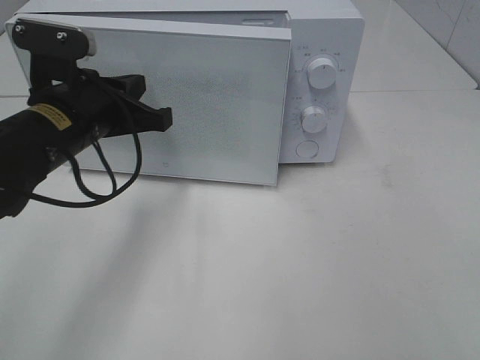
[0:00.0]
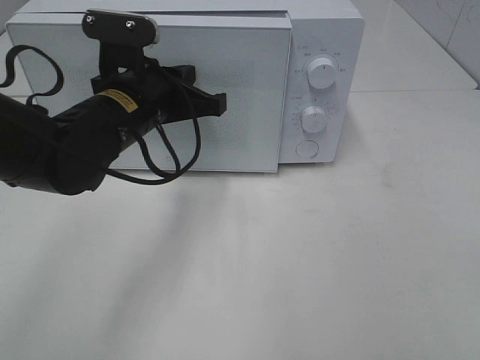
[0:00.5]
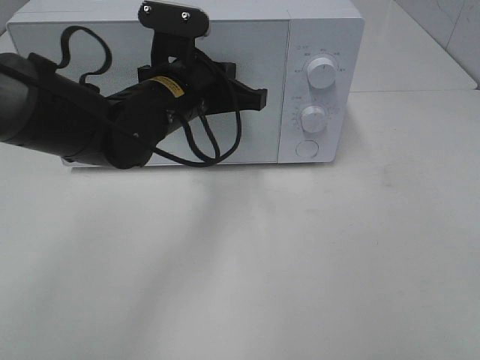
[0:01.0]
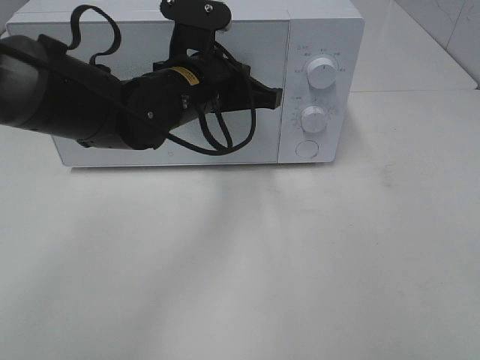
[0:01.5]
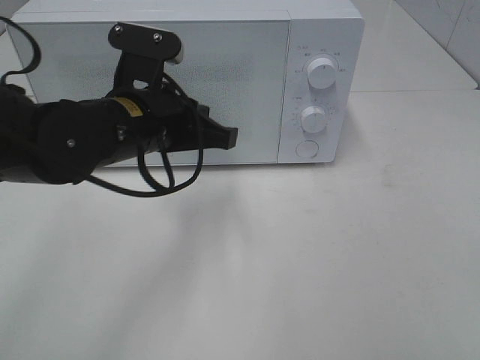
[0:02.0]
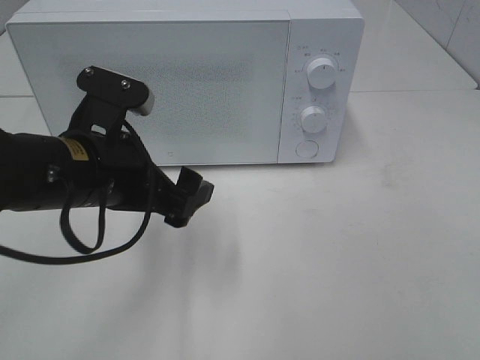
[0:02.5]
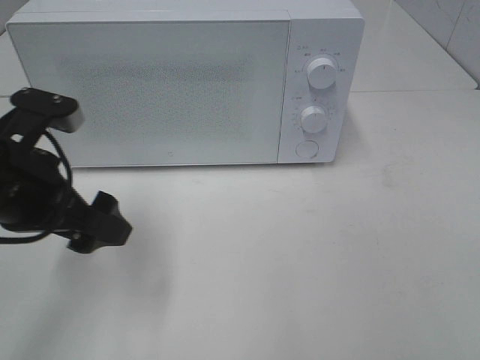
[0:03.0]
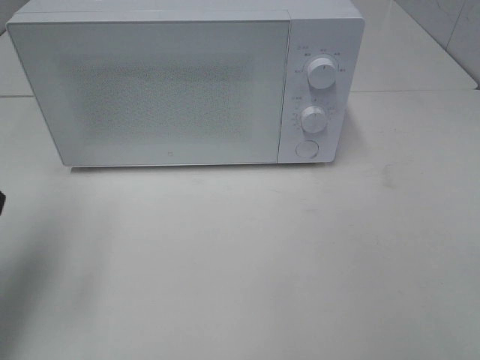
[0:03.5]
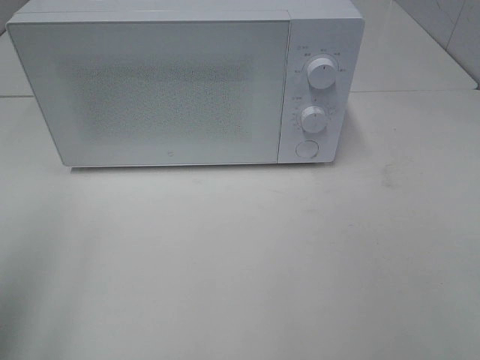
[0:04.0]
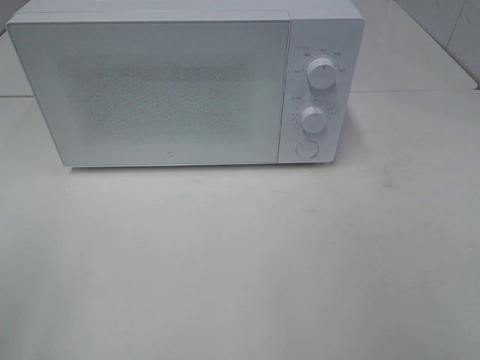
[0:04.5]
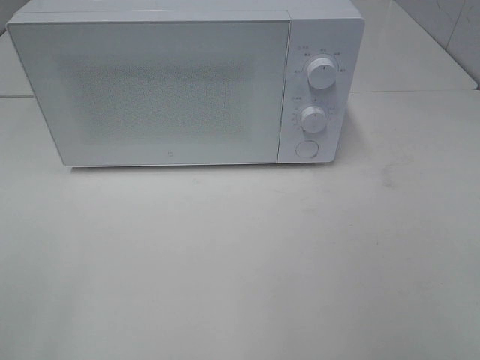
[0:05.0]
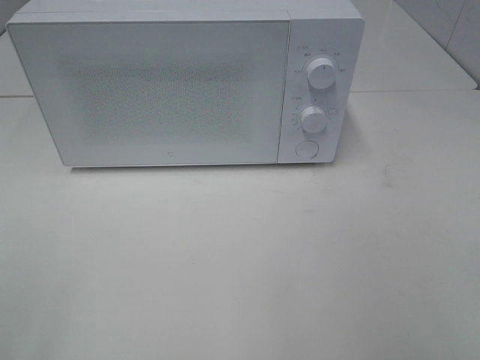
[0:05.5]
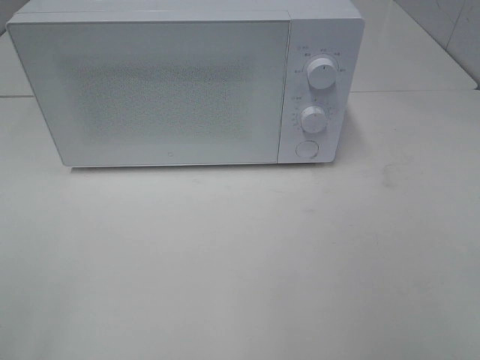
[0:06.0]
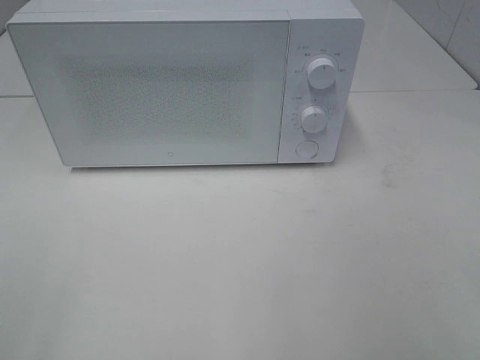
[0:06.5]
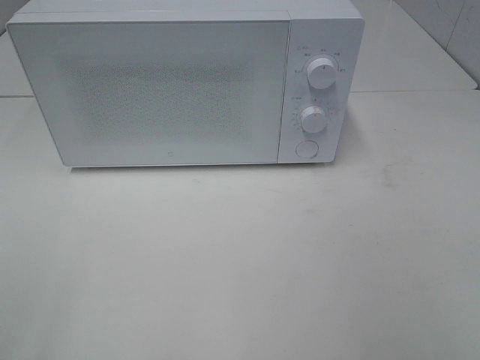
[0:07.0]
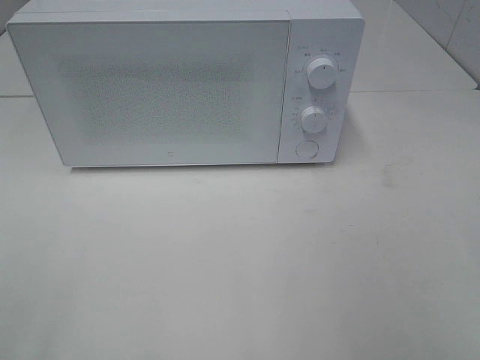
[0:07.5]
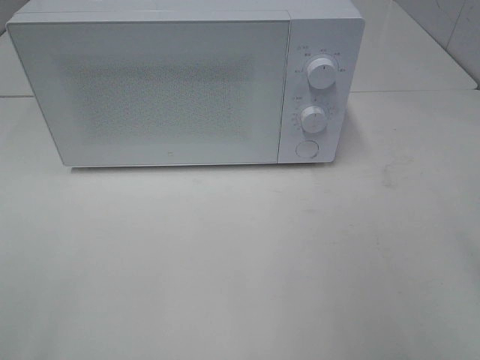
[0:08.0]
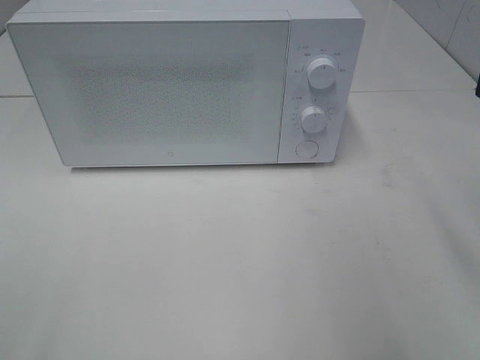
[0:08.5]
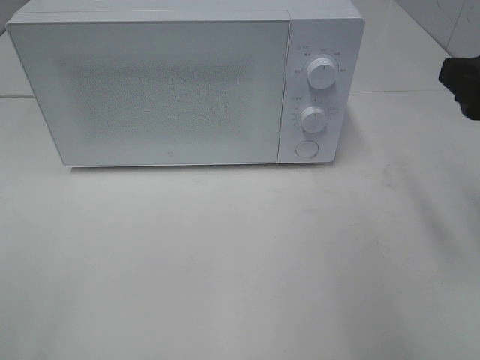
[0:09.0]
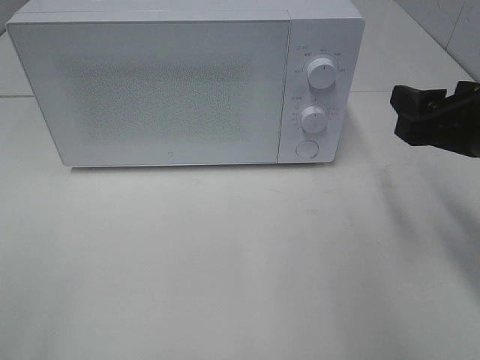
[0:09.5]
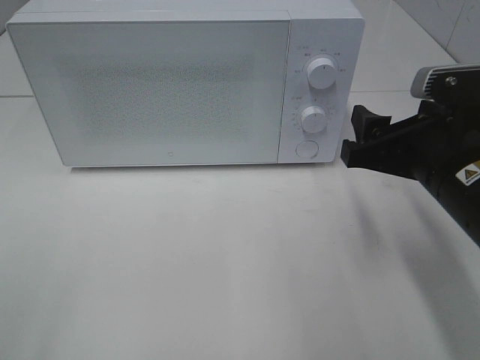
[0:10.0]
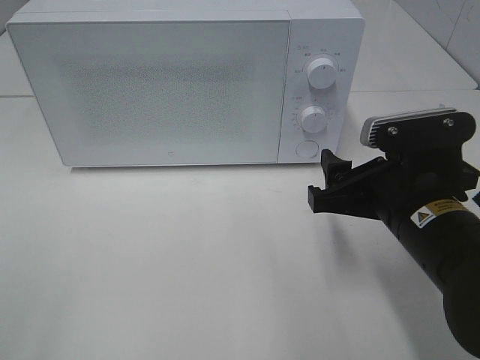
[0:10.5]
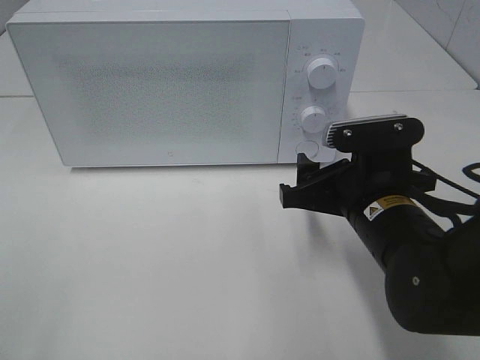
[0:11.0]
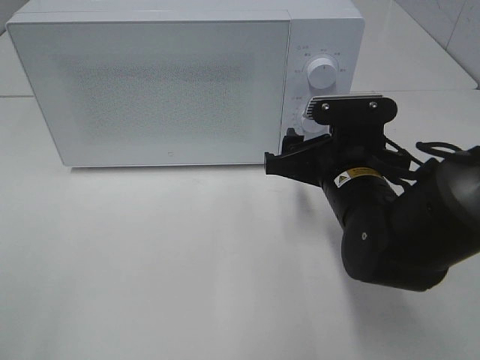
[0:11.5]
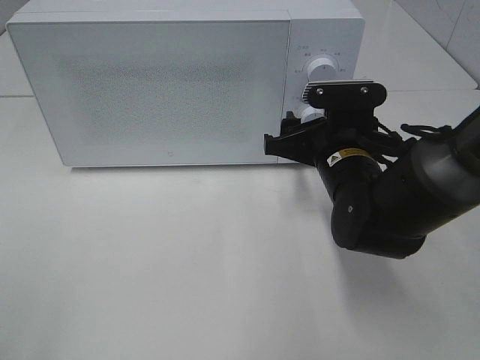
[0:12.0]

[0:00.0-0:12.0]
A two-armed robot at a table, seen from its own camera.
Task of the whole recording: Heat the burger.
0:00.0 to 0:02.0: The left gripper moves to the right, approximately 5 cm.
0:02.0 to 0:04.0: The left gripper is displaced to the left, backward and upward by roughly 30 cm, and opens up.
0:04.0 to 0:06.0: The left gripper goes approximately 10 cm backward.
0:08.0 to 0:10.0: The right gripper moves downward, forward and to the left, approximately 15 cm.
0:10.0 to 0:12.0: The right gripper heads forward, to the left and downward, covering roughly 10 cm.

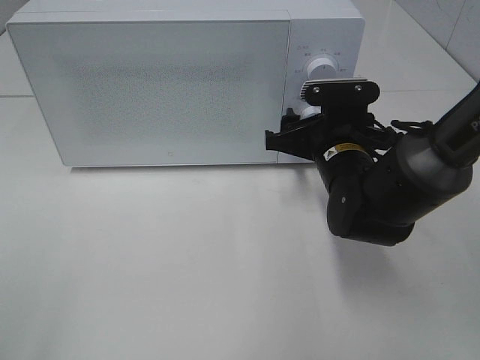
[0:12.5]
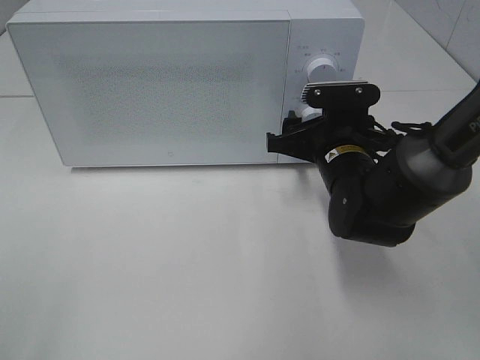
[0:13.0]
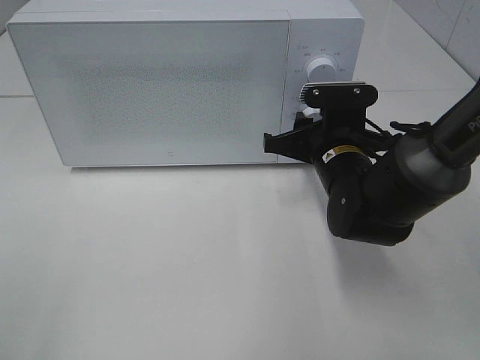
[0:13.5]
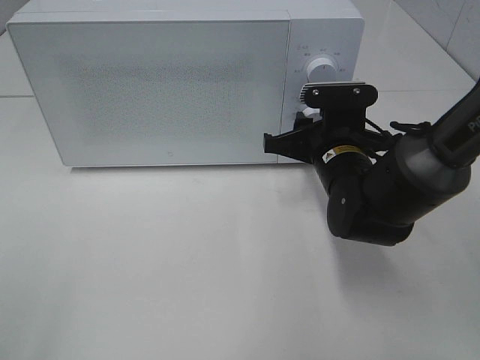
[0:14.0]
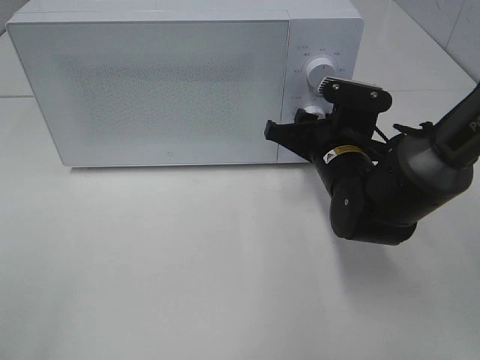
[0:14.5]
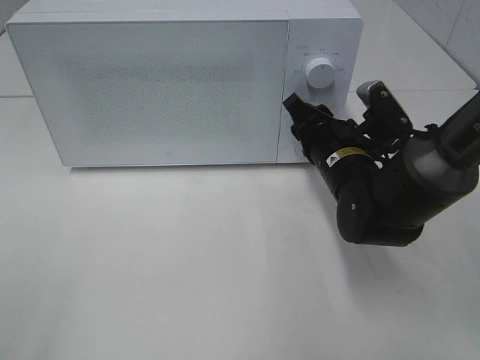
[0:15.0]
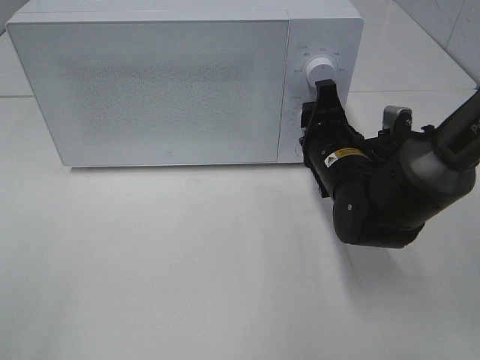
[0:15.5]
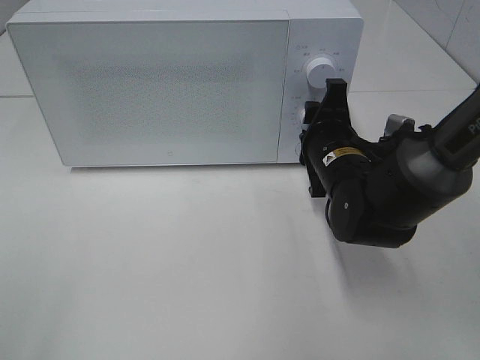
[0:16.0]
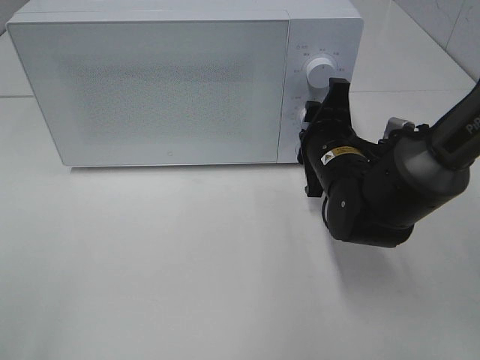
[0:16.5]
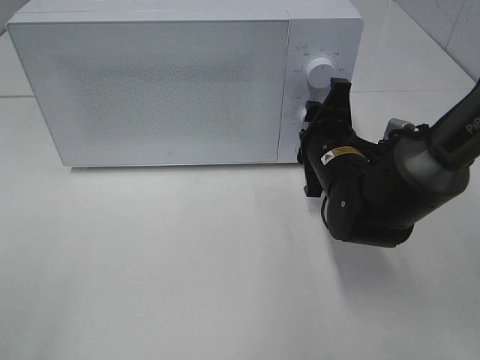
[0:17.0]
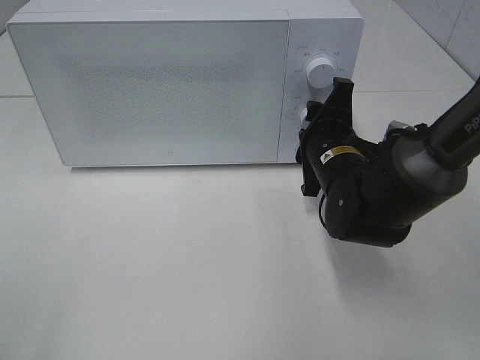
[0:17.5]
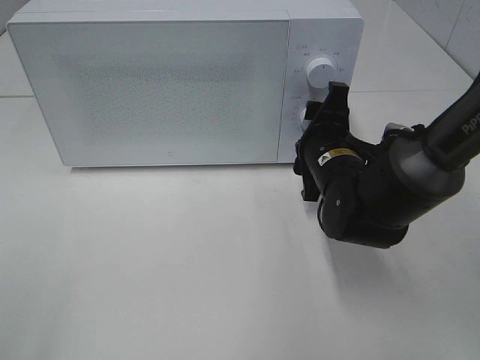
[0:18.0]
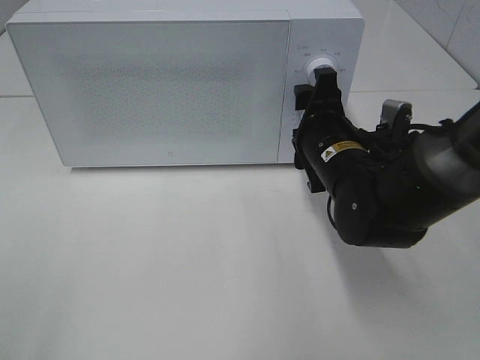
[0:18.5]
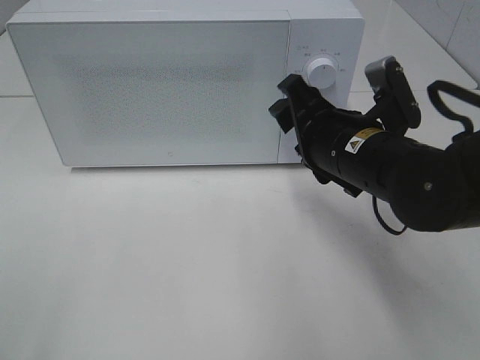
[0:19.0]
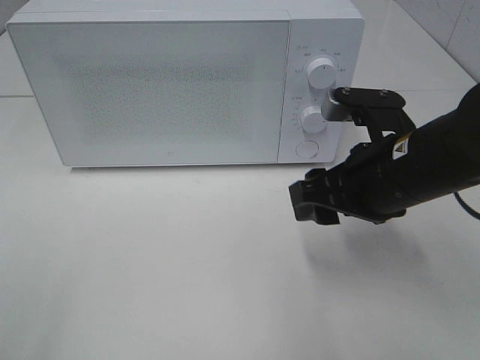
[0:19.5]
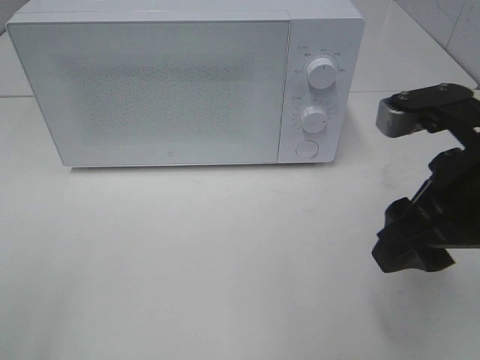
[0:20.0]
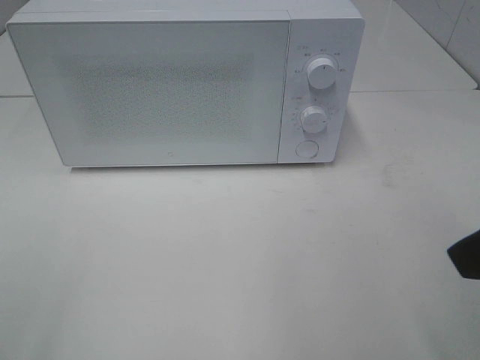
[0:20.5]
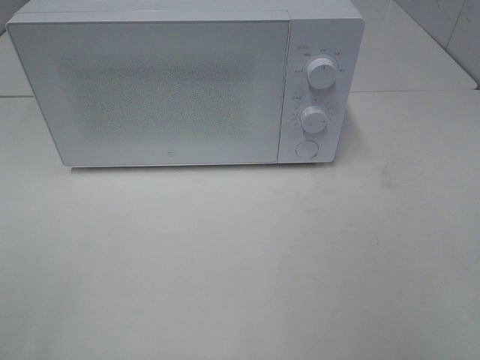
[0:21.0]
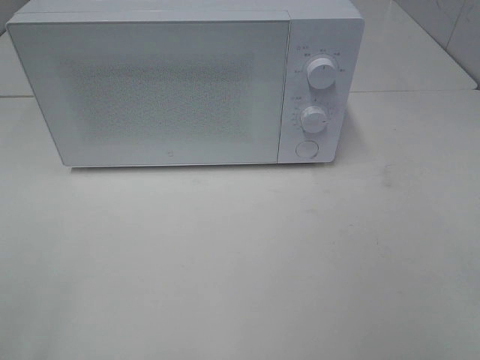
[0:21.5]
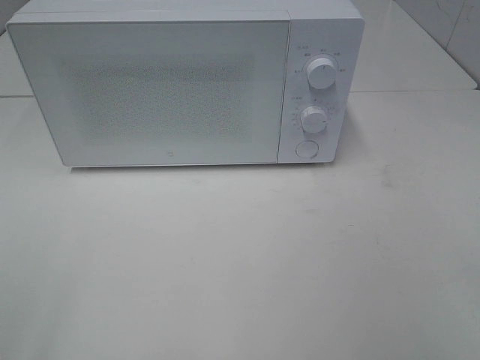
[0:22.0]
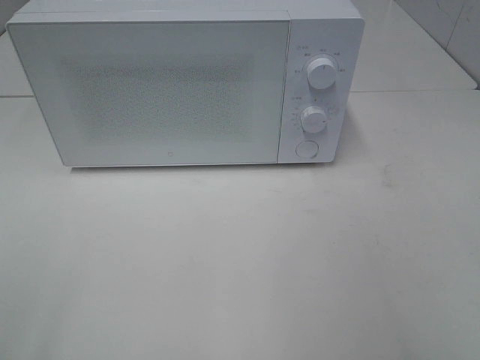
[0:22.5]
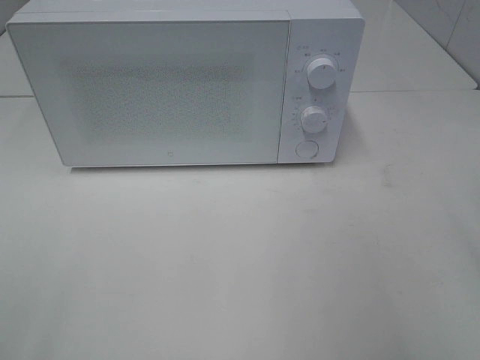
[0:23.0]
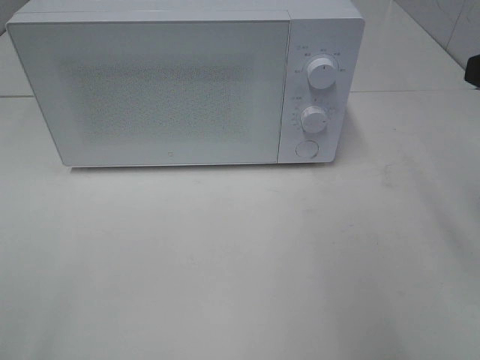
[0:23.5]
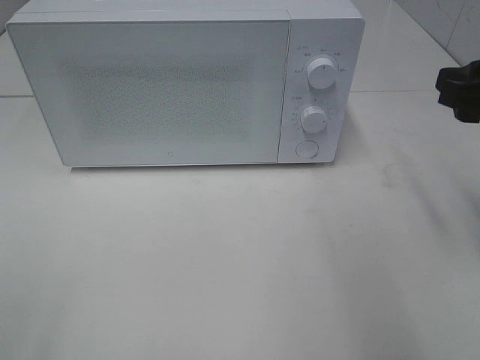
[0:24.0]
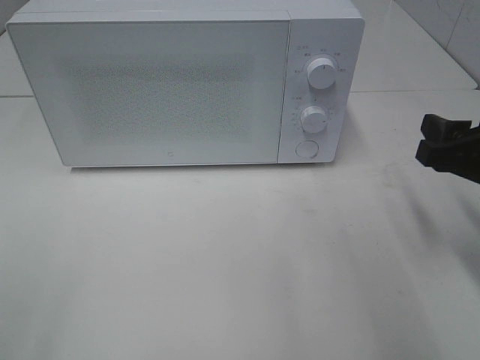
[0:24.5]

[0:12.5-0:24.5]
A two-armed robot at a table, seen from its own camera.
Task of the whole recording: Heat the burger.
Step, 0:12.5 to 0:18.0: Right hand: twist timer button.
0:12.5 to 0:14.5: The right gripper closes its fingers.
0:16.5 to 0:18.5: There are only small adjustments of the grippers.
0:18.5 to 0:20.5: The right gripper is displaced backward, upward and to the right by about 25 cm.
0:20.5 to 0:22.5: The right gripper is displaced backward and to the right by some 10 cm.
0:22.5 to 0:24.5: The right gripper heads forward and downward, covering approximately 20 cm.

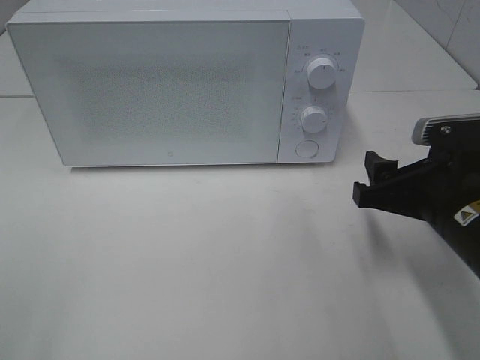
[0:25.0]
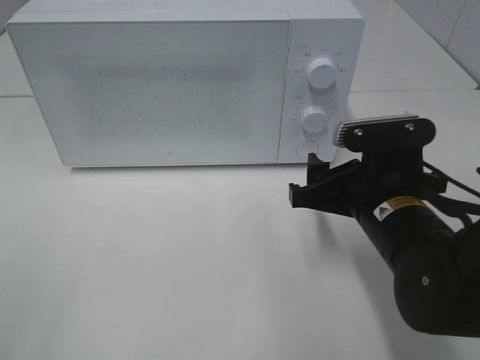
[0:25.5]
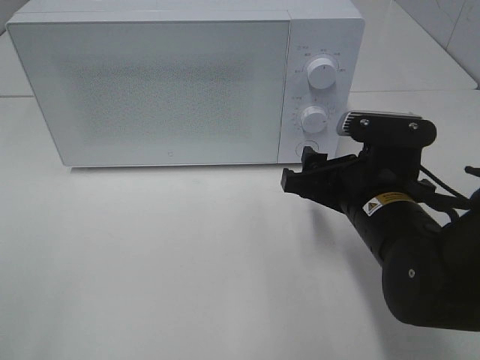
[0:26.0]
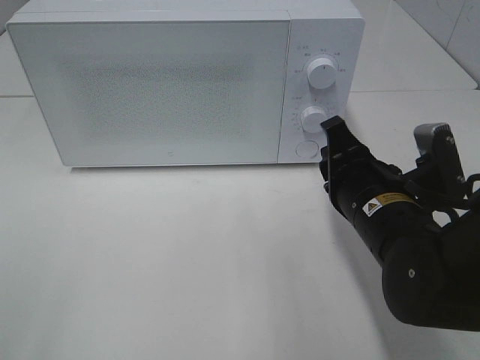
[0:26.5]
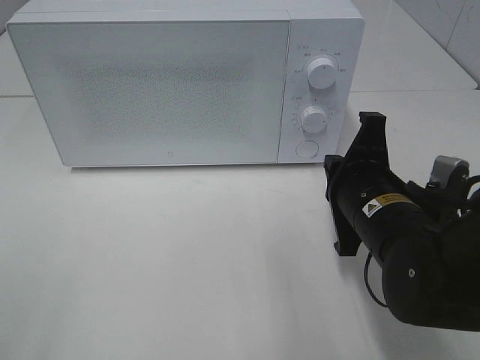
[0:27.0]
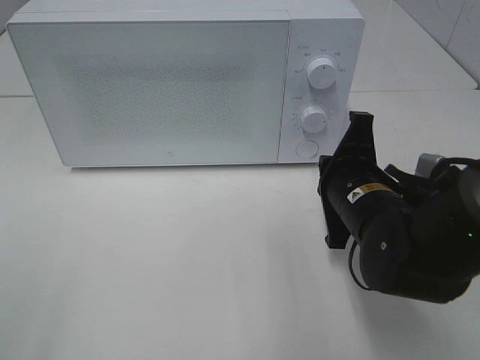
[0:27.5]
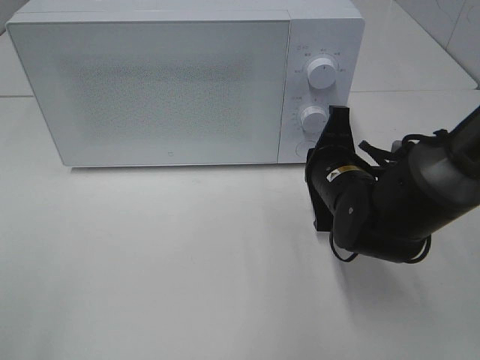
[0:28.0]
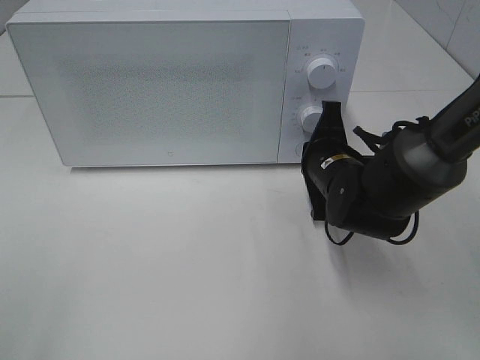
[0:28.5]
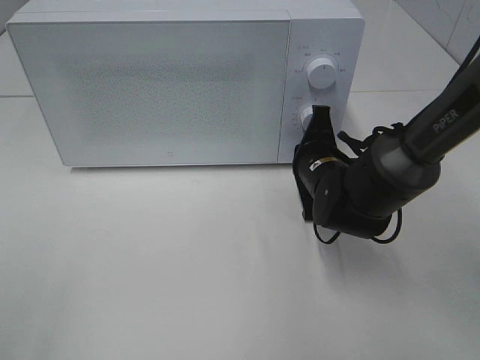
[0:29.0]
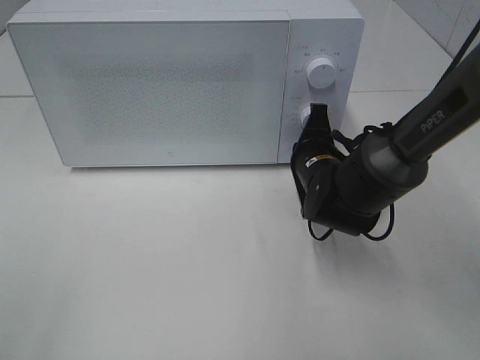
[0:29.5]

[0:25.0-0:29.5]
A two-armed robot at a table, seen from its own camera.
Task of the whole recording: Heat the burger.
0:25.0 to 0:27.0: The right gripper heads to the left, covering about 5 cm, and closes up.
0:27.0 to 0:29.5: The right gripper moves forward and downward, about 15 cm.
